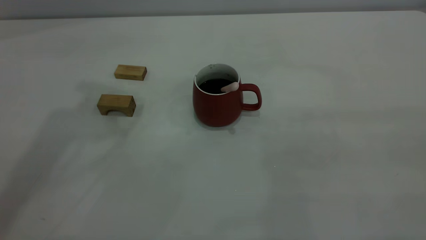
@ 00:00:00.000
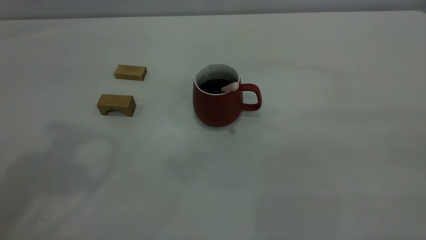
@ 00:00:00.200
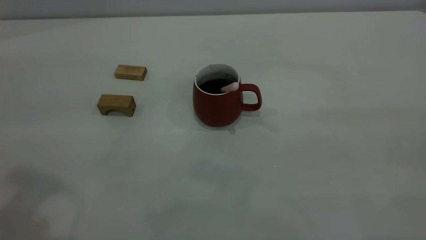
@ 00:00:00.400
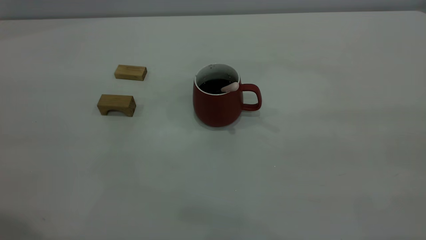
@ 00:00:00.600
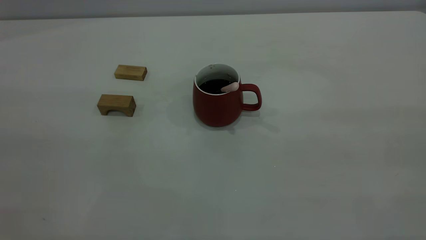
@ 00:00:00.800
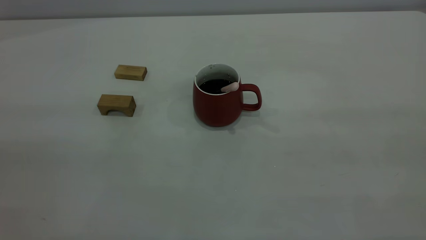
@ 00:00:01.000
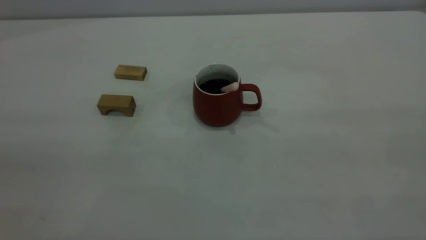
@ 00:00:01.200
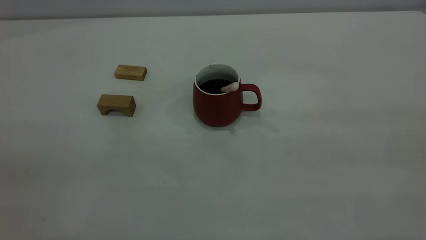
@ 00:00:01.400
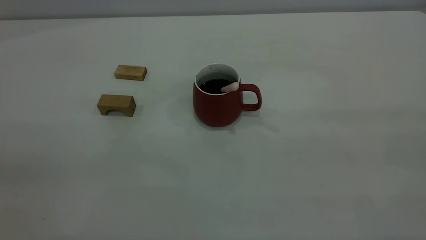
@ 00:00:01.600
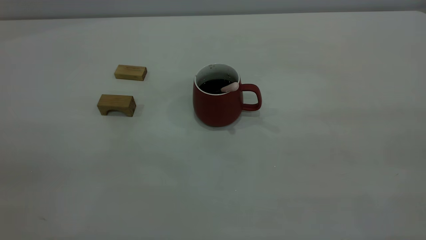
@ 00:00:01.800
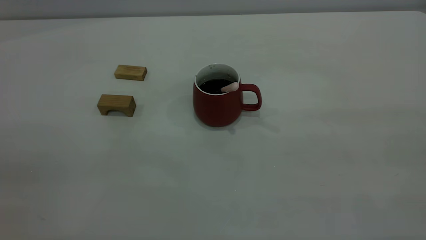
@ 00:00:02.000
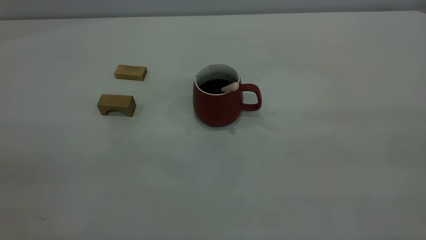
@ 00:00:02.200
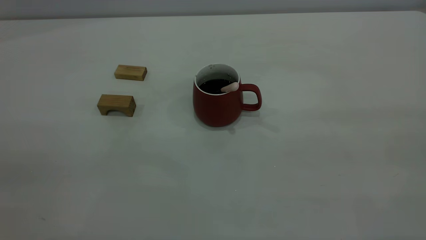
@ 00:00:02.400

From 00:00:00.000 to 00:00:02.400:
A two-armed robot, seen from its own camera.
From 00:00:01.200 to 00:00:02.400: Both grippers stay about where they are.
